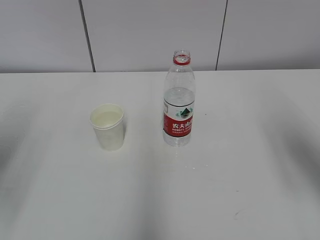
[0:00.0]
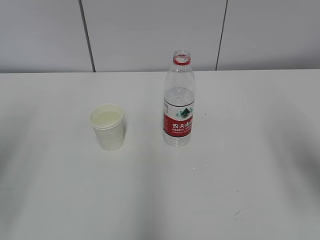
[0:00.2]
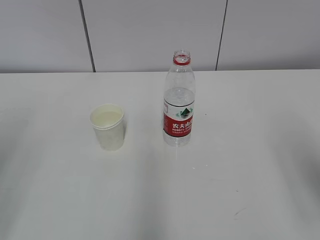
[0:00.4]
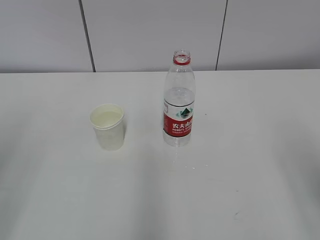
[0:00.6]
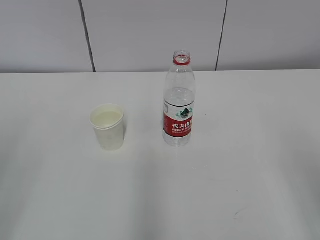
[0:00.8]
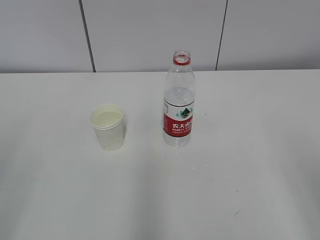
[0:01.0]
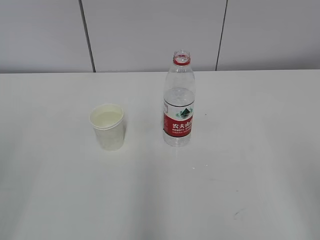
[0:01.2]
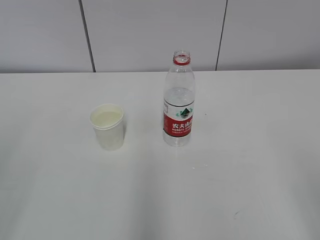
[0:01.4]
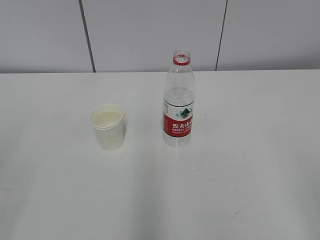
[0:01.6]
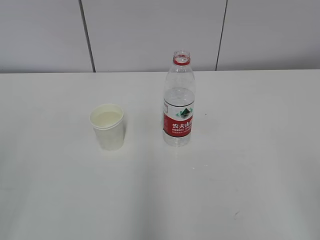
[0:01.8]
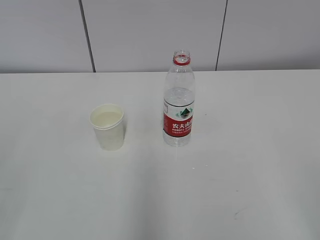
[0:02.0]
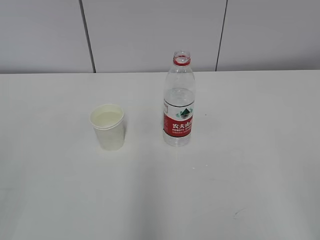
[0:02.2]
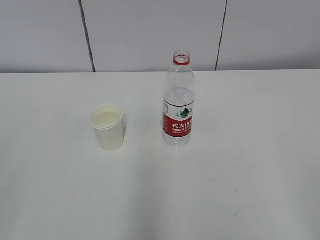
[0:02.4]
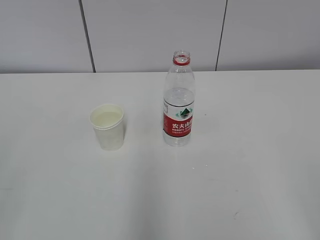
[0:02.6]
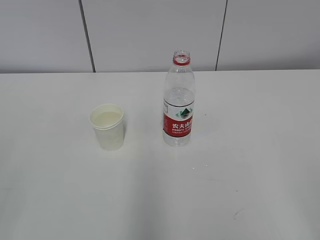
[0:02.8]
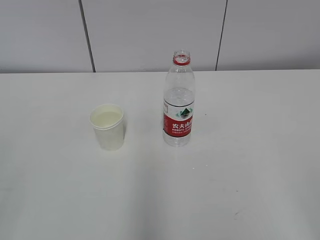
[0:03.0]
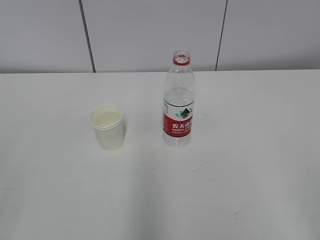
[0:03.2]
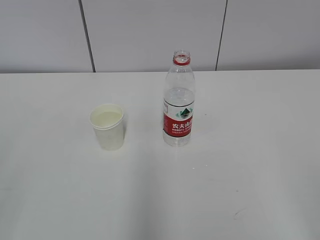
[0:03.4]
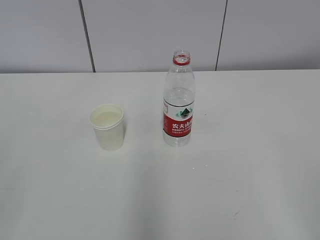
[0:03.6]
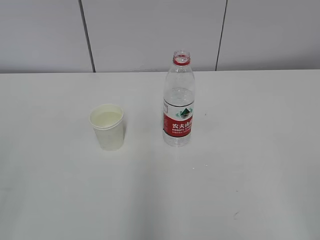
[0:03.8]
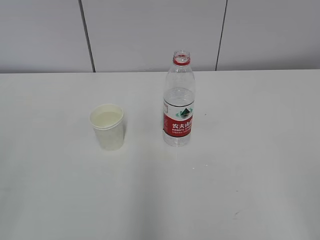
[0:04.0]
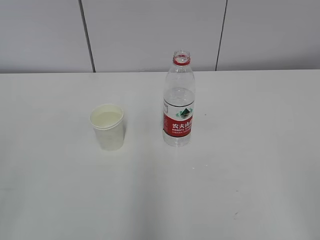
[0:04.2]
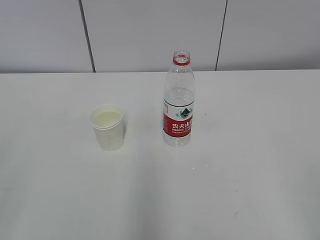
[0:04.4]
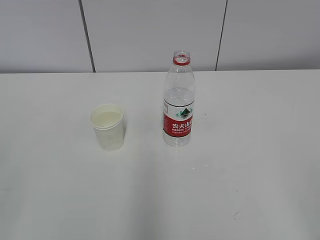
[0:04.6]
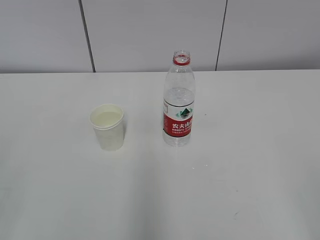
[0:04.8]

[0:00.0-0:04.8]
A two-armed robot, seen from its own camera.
0.0 to 1.6 s: The right gripper is displaced backward by about 20 cm.
3.2 to 4.8 s: The two grippers keep their place.

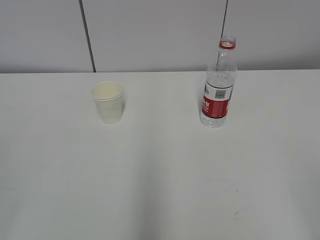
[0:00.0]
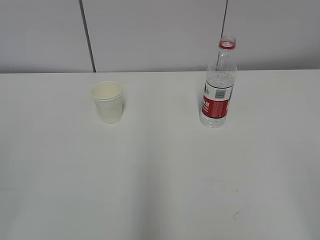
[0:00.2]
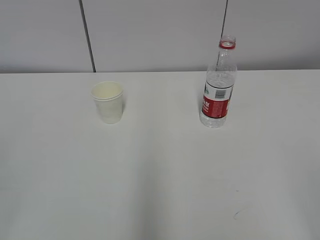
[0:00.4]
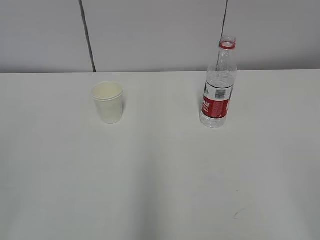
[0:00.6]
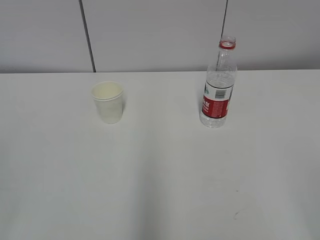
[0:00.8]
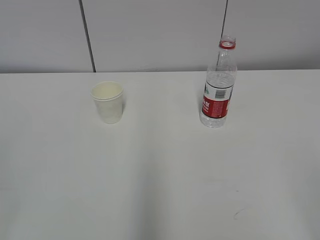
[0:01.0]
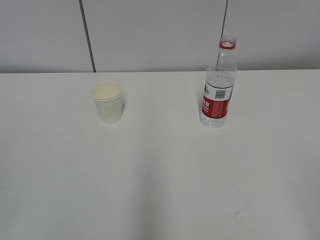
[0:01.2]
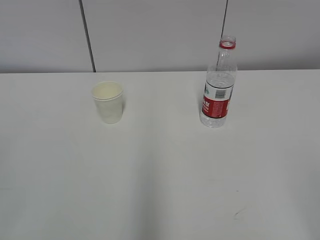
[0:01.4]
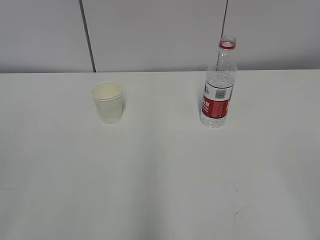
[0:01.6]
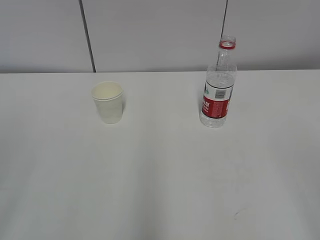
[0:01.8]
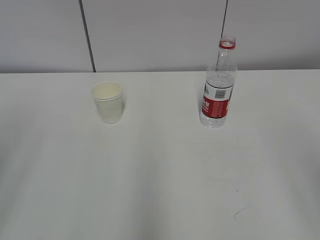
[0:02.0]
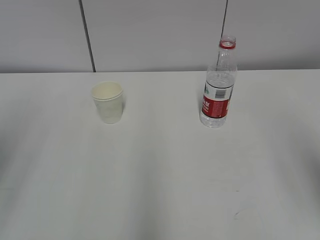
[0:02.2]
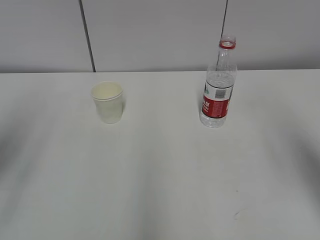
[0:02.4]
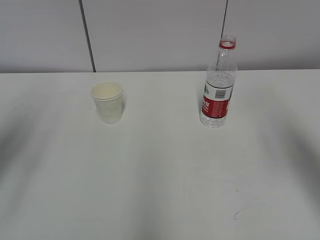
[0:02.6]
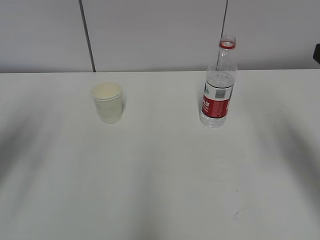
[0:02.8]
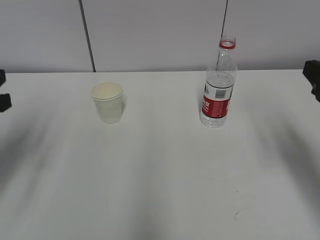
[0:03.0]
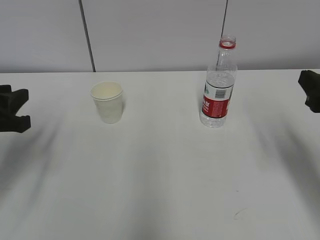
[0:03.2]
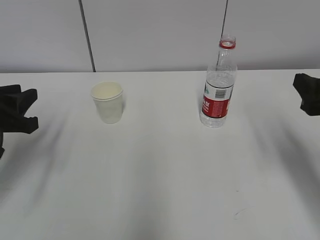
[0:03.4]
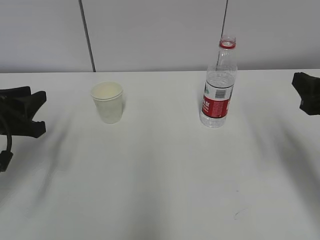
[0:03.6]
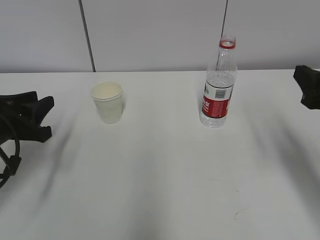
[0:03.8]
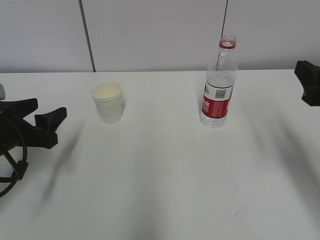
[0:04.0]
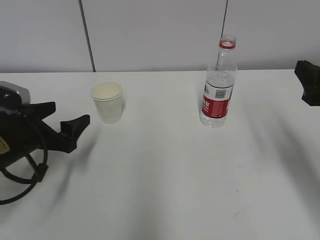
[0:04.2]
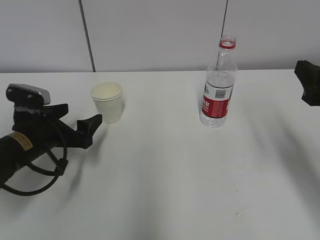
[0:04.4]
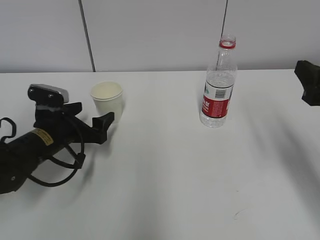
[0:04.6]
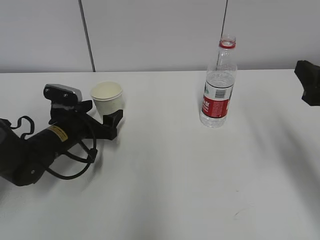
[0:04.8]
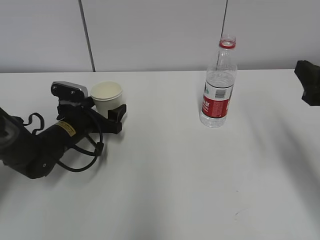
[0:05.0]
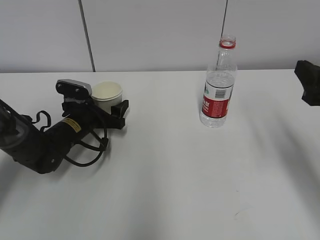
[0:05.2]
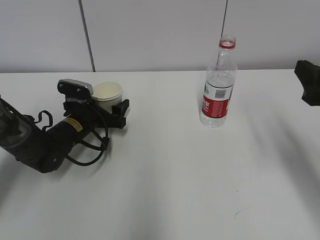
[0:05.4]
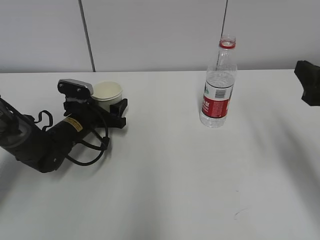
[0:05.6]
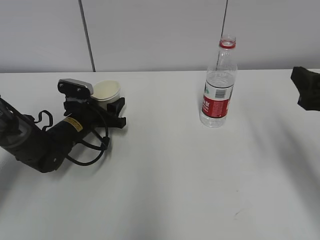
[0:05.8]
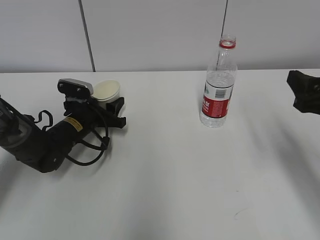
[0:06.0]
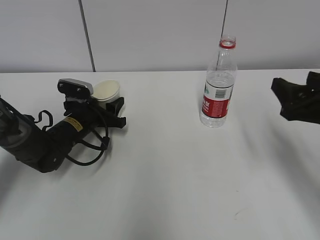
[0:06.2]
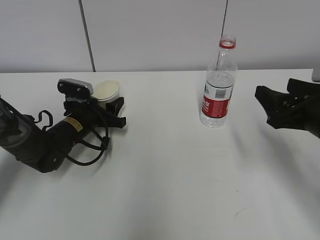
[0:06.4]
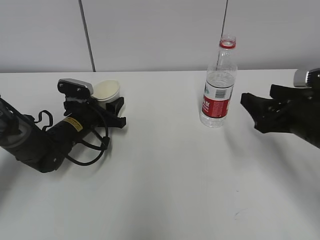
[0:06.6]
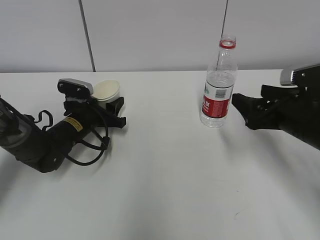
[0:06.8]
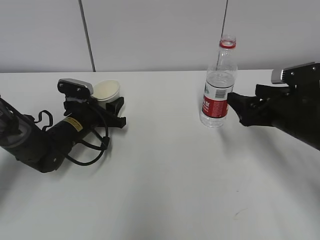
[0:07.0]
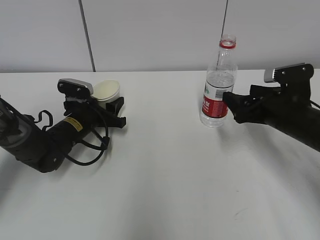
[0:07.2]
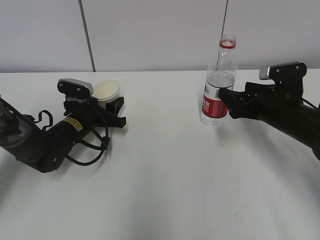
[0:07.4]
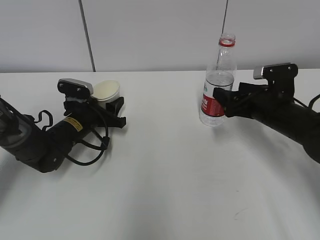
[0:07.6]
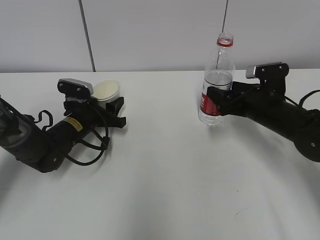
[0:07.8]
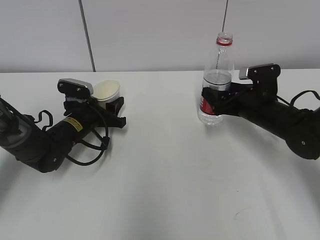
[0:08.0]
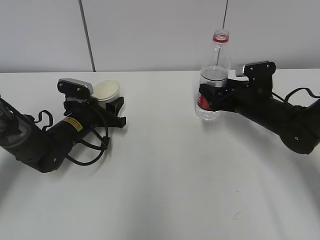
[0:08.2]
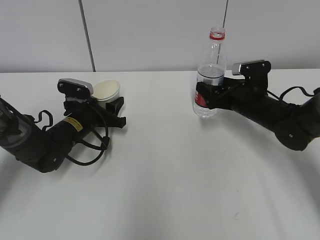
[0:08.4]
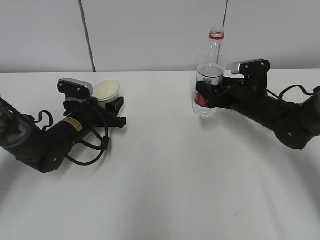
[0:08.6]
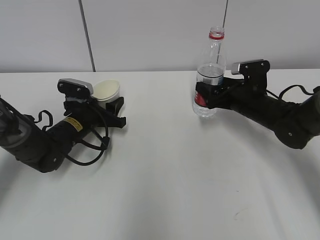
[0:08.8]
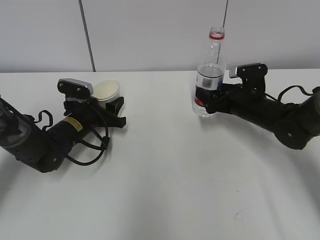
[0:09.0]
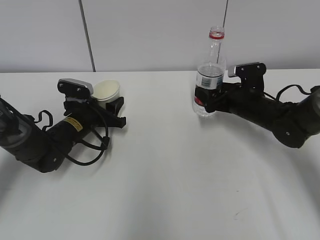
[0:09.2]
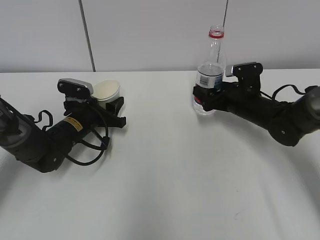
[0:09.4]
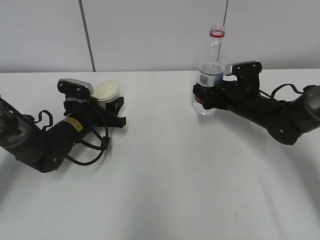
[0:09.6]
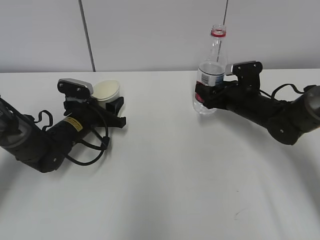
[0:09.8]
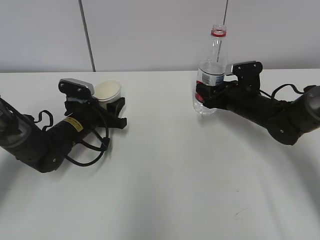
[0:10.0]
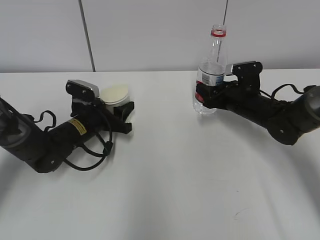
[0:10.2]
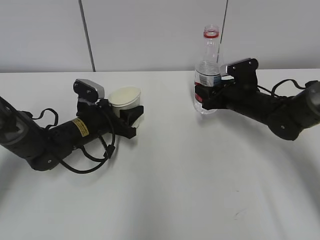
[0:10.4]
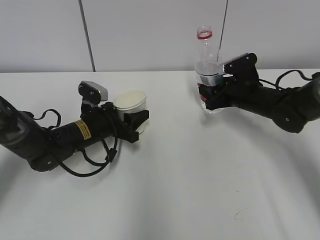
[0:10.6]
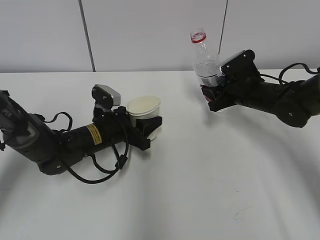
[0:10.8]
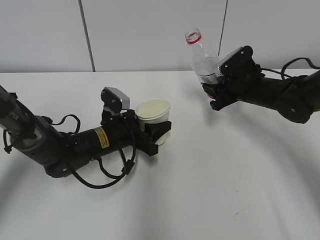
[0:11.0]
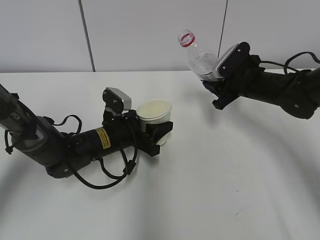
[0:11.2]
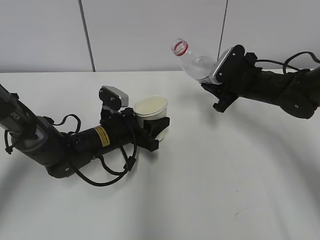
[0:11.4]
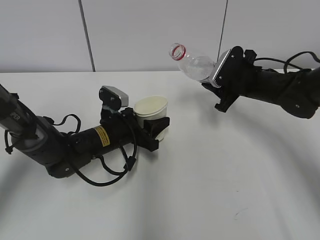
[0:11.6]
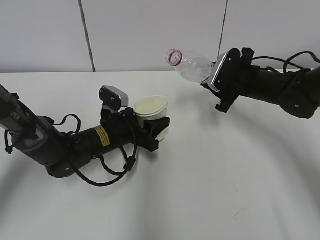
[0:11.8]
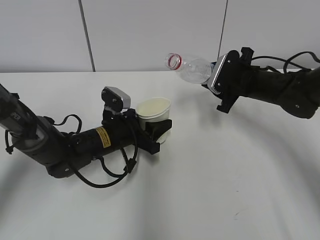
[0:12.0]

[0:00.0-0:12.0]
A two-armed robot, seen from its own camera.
Step, 0.0 to 8.2 s: Grab the paper cup with the left hand.
1.6 to 3.0 s: Both grippers move forward, approximately 25 cm.
3.0 to 4.4 s: The left gripper is displaced downward, to the right and forward by roughly 15 cm, and opens up.
4.4 to 6.0 s: The left gripper heads forward and downward, covering roughly 10 cm, and closes up.
6.0 to 7.6 s: The right gripper heads forward and downward, covering approximately 15 cm.
7.6 to 9.0 s: The right gripper is displaced forward by approximately 5 cm.
9.0 to 10.4 s: The right gripper closes.
10.4 to 12.0 s: The left gripper shifts about 5 cm to the right. The right gripper shifts roughly 5 cm upward.

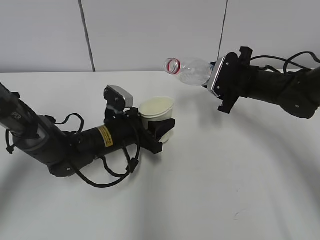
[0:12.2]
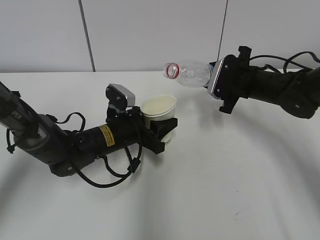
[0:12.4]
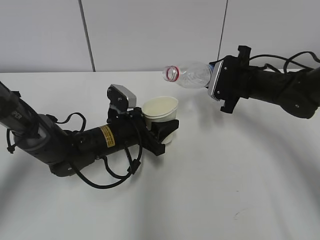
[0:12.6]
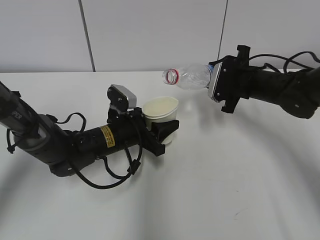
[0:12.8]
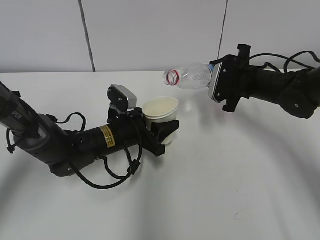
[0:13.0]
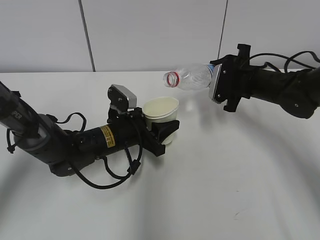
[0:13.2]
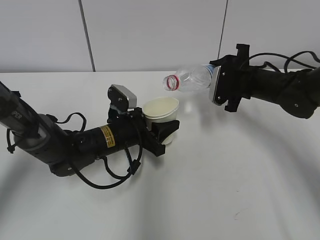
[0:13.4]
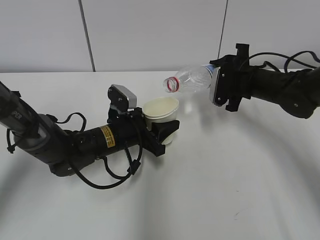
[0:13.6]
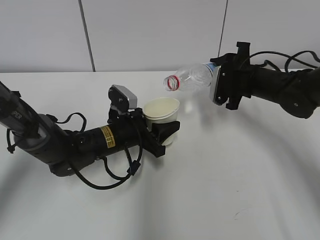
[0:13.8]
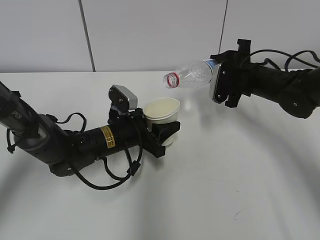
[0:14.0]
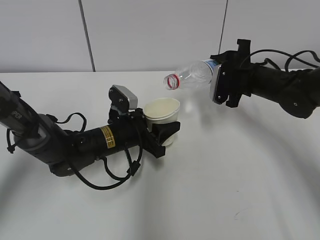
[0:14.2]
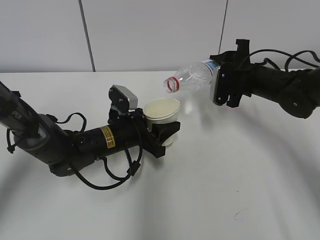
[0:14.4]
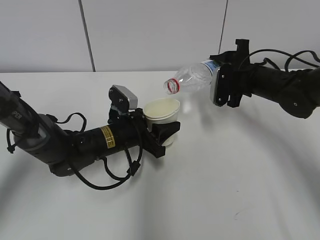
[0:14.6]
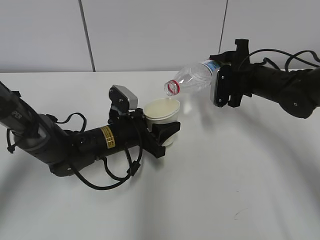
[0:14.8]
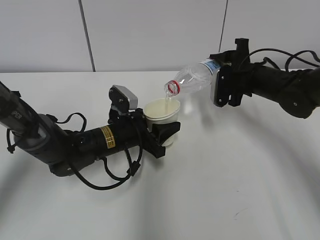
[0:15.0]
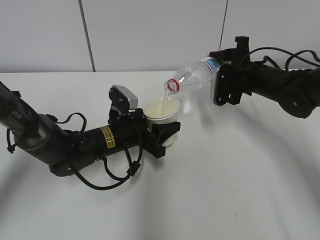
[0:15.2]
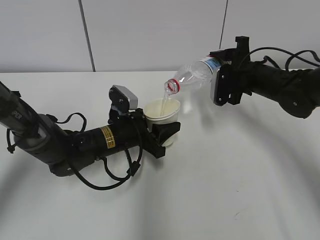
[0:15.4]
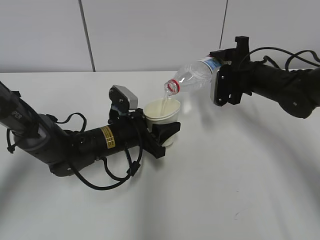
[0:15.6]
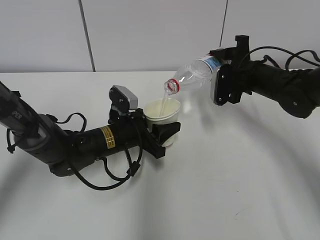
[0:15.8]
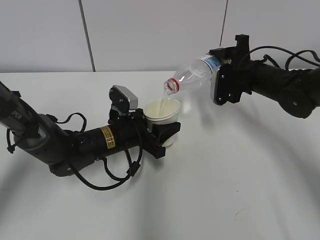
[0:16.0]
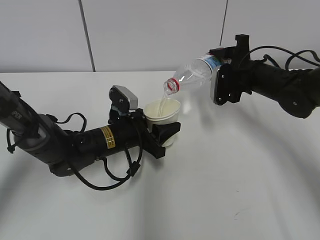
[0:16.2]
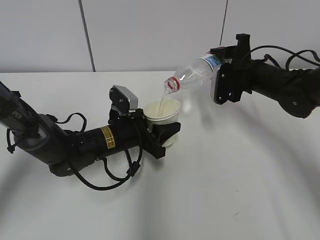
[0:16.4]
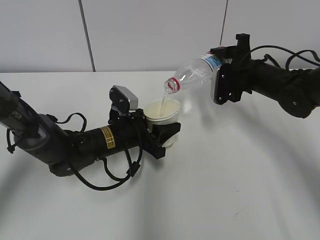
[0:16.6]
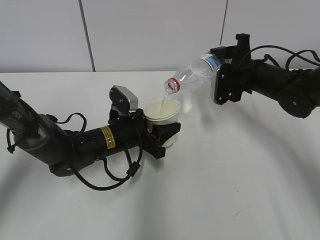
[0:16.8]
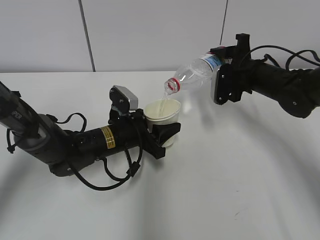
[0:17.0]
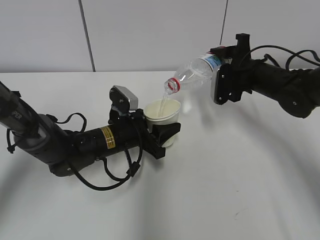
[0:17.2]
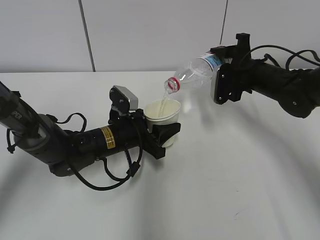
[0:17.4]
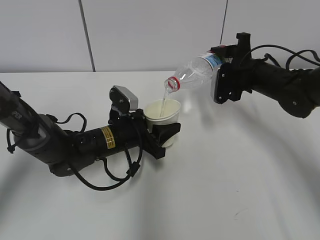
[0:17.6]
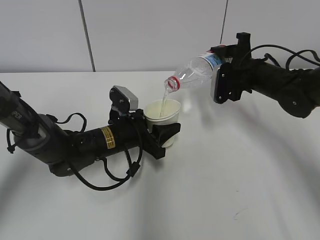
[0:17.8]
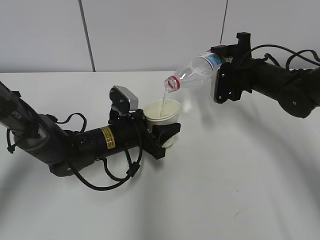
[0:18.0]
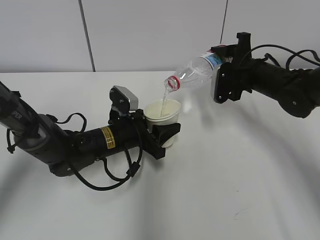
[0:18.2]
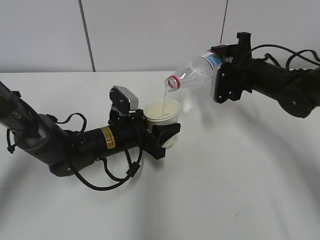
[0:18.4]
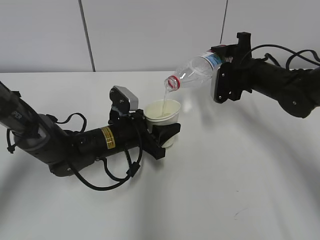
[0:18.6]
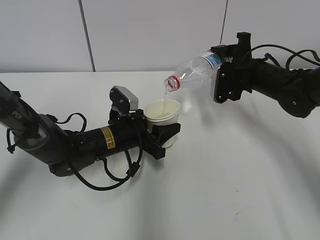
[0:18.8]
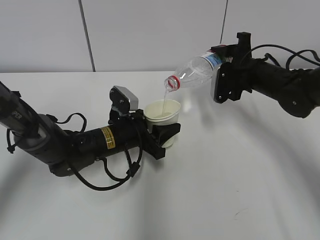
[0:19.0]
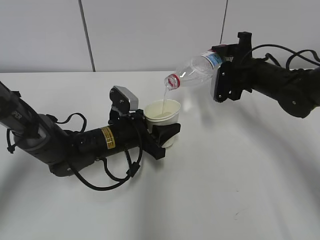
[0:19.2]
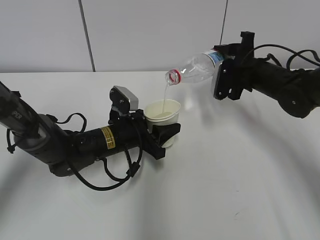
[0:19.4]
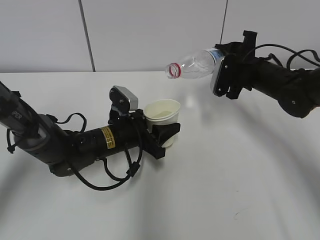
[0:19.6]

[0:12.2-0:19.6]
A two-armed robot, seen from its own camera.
Step, 12.4 to 16.2 s: Fill water with the left hand.
Step, 12.4 to 16.2 s: Pour water with the right hand.
12.2 to 13.6 s: There are only small adjustments of the grippers.
13.6 to 15.2 s: The grippers move only a little.
15.2 to 18.2 s: The two grippers keep their place.
18.2 to 19.6 s: There are only small adjustments of the grippers.
